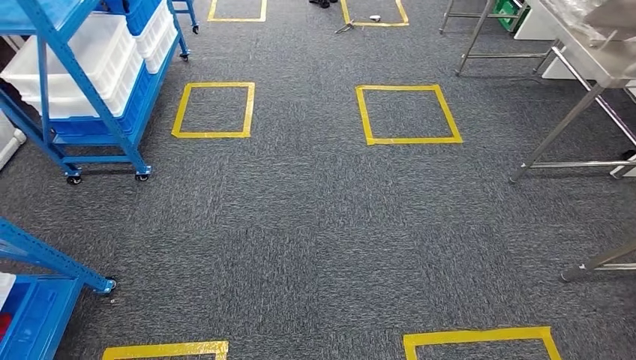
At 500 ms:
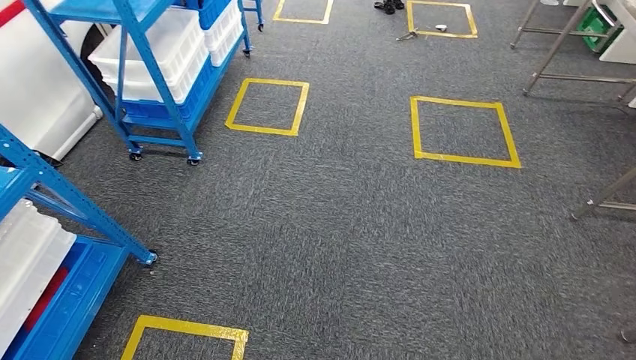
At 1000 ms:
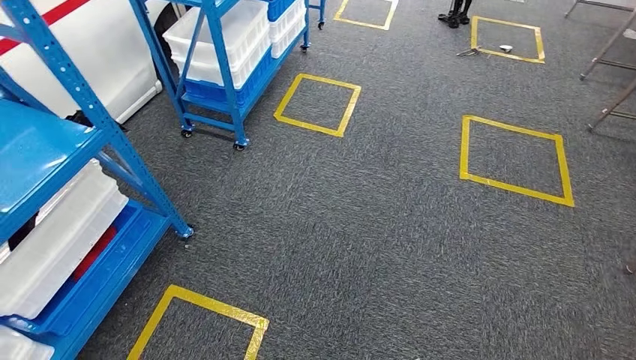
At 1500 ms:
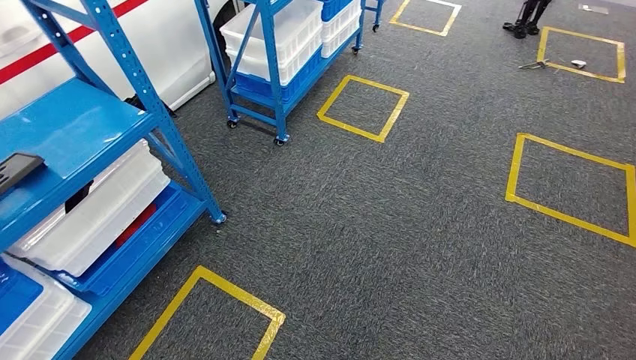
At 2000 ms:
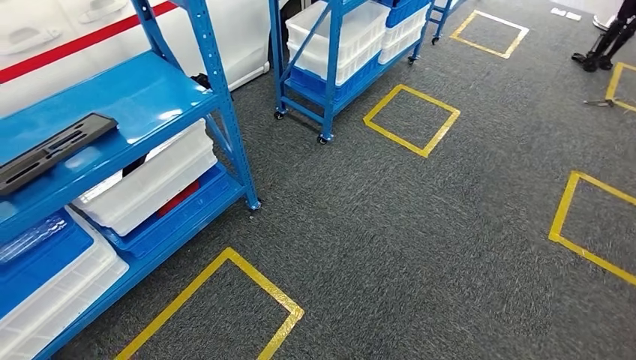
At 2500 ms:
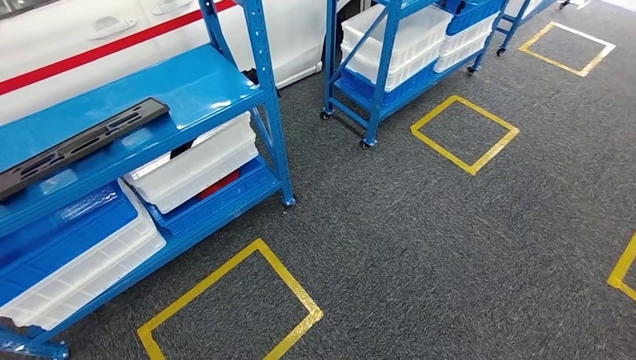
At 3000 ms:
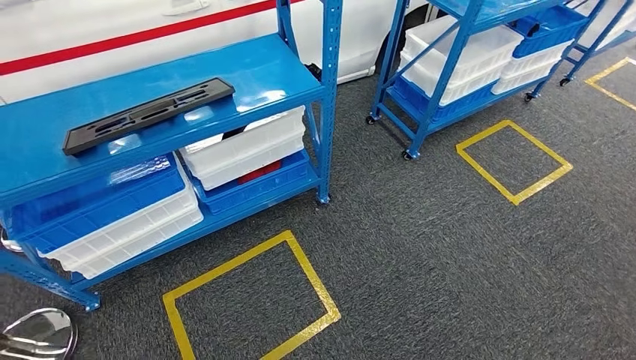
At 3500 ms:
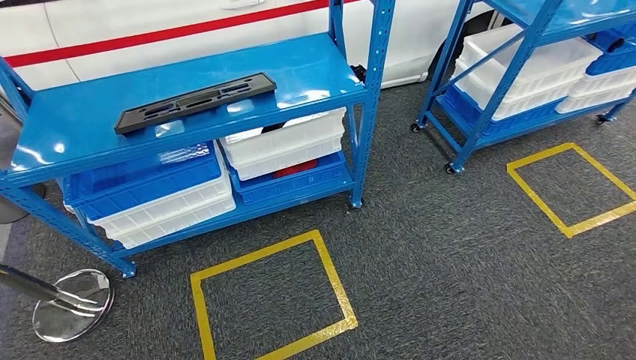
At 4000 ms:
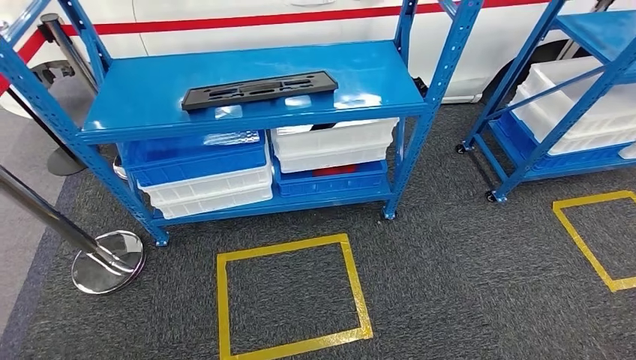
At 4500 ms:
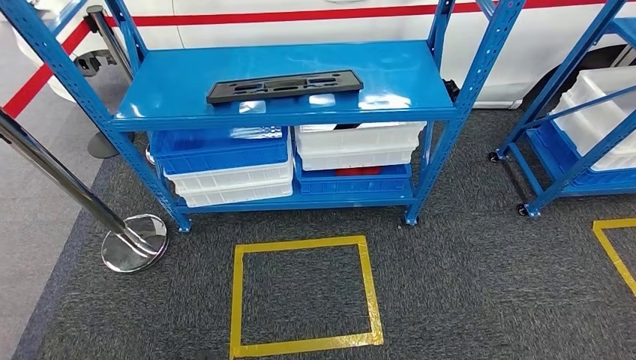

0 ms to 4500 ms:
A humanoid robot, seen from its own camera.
Step, 0 ms to 4500 ms: Move to the initial position of the shelf.
